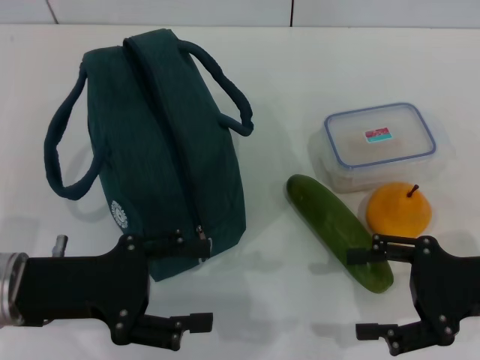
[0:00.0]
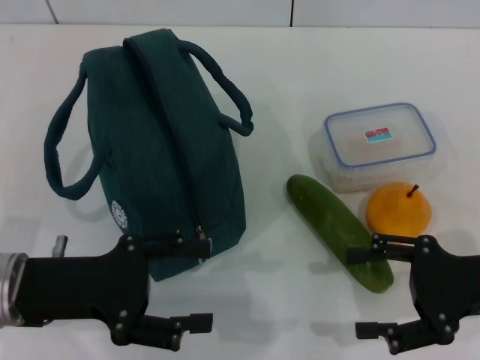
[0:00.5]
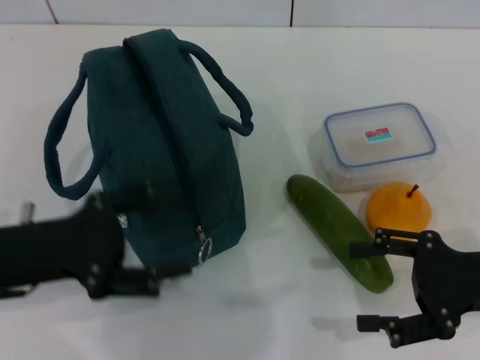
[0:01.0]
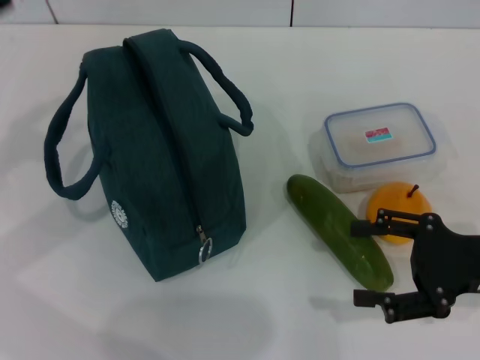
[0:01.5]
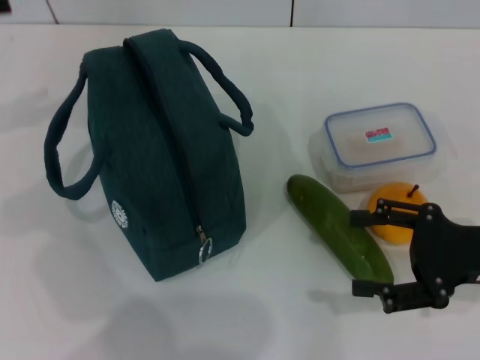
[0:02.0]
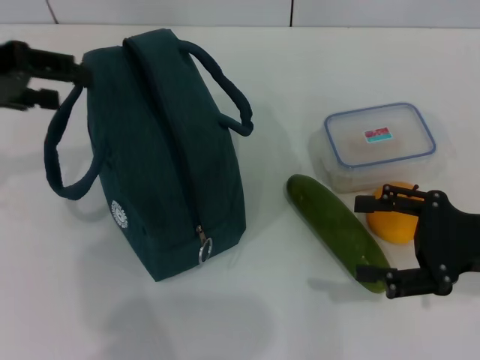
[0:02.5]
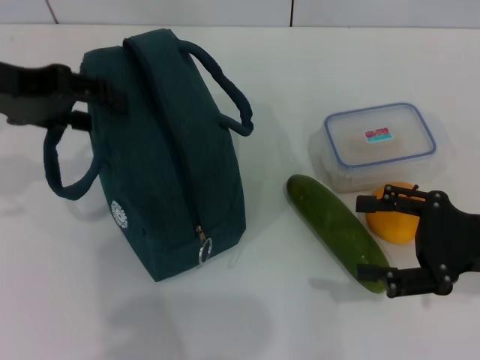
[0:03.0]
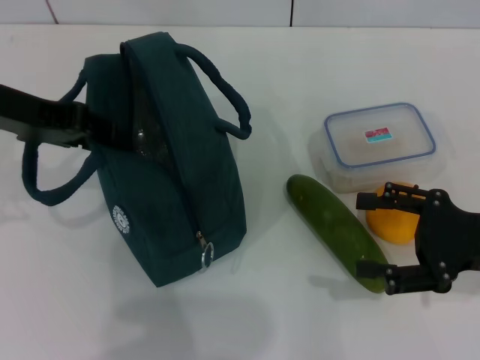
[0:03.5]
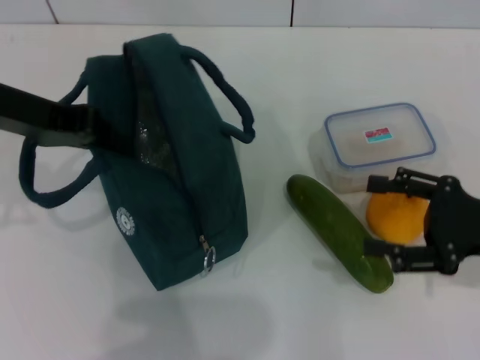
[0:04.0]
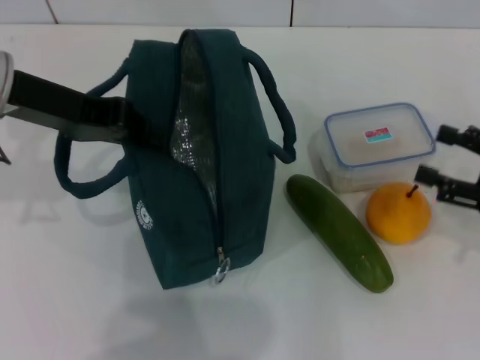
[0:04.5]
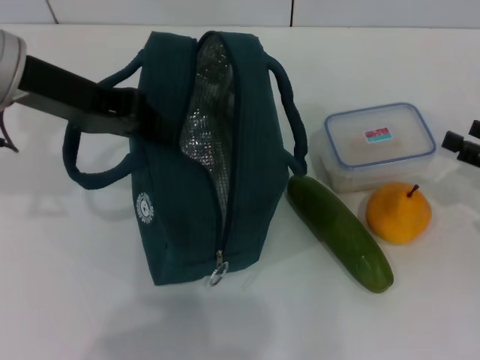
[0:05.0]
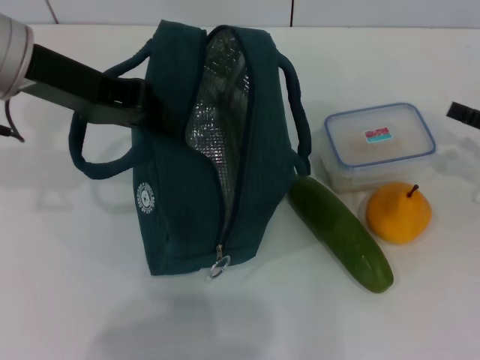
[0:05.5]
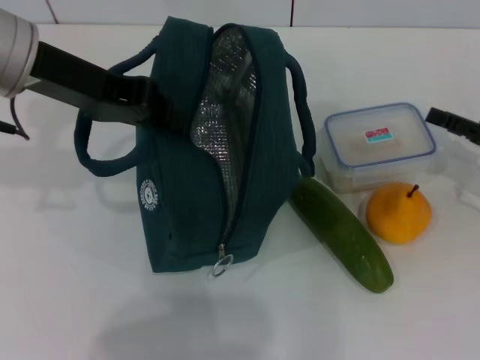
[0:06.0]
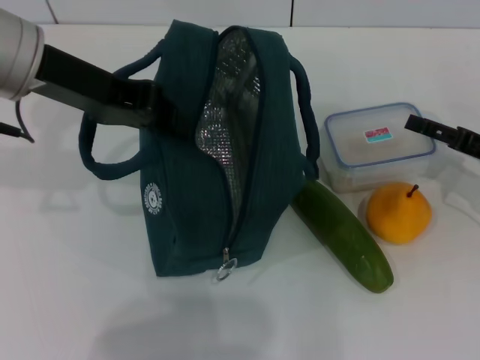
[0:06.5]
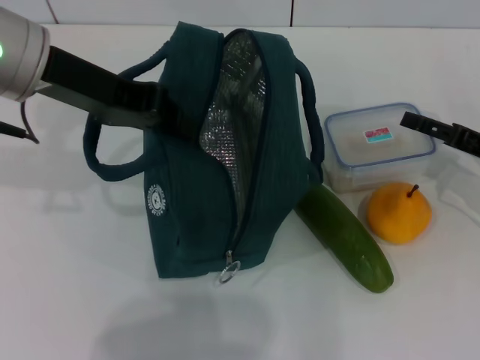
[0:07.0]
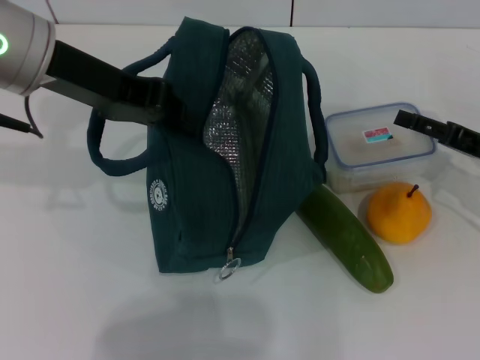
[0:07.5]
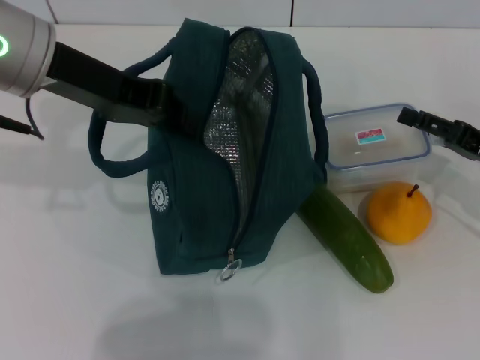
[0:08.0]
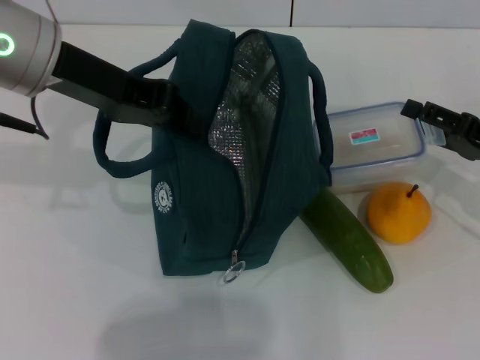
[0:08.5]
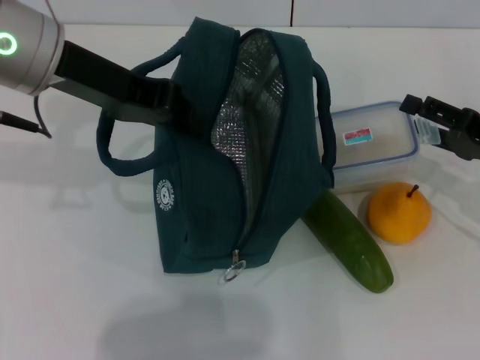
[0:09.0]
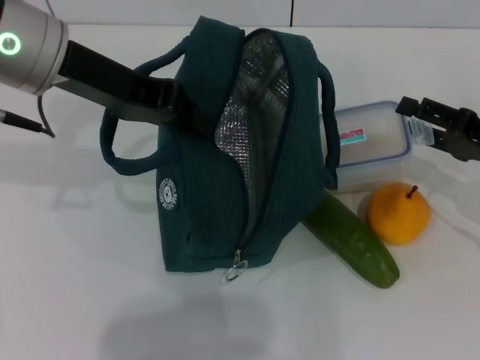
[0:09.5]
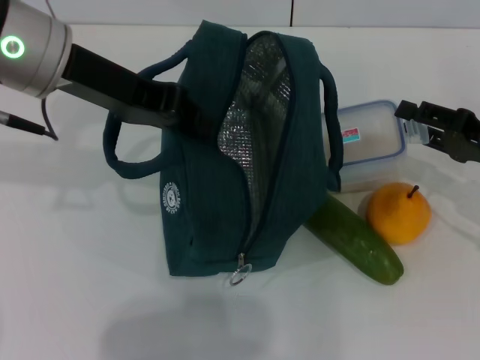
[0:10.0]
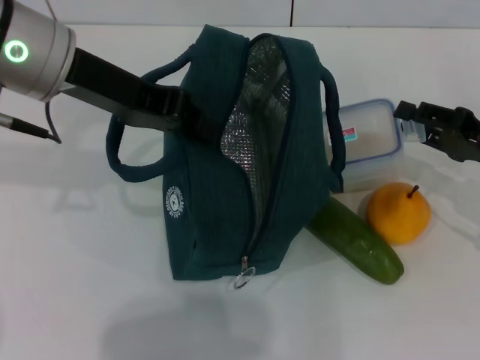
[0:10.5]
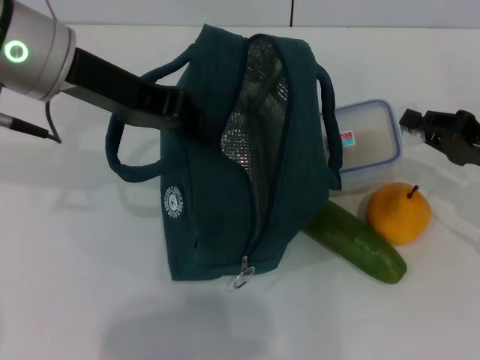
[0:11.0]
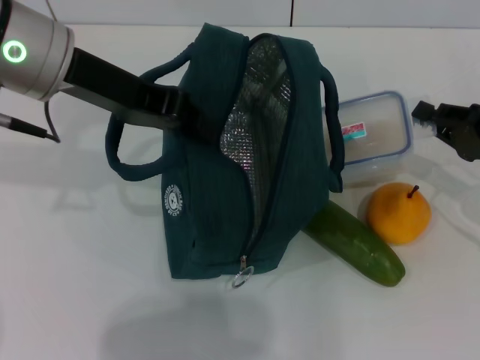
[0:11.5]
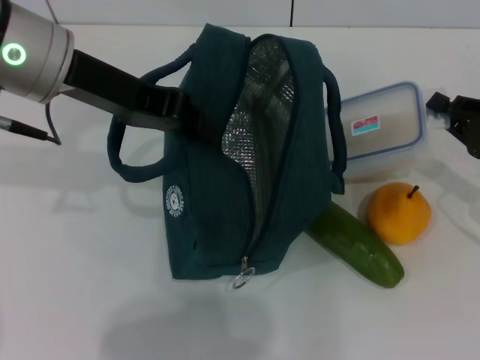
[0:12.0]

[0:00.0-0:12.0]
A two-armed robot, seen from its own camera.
Step, 0:00.0 to 0:03.5: Hold the lunch bag with your left hand.
Step, 0:04.5 to 0:11.0: Pick up the lunch box with your right hand.
0:00.0 to 0:02.0: The left gripper travels upward, forward and to the left by approximately 25 cm.
0:02.0 to 0:04.0: The left gripper goes approximately 10 cm to the right, and closes.
0:04.0 to 0:06.0: The left gripper shifts by roughly 5 cm. The right gripper shifts some 5 cm forward.
0:06.0 to 0:08.0: There are only small adjustments of the grippers.
0:08.0 to 0:10.0: The grippers make only small movements.
0:10.0 to 0:12.0: The right gripper closes its fingers.

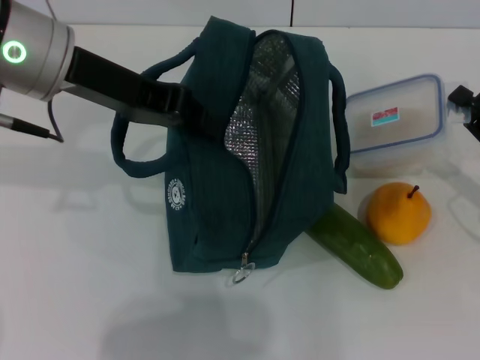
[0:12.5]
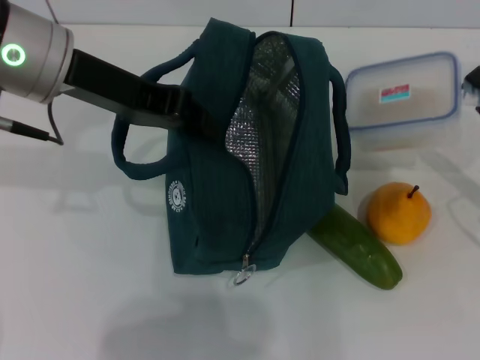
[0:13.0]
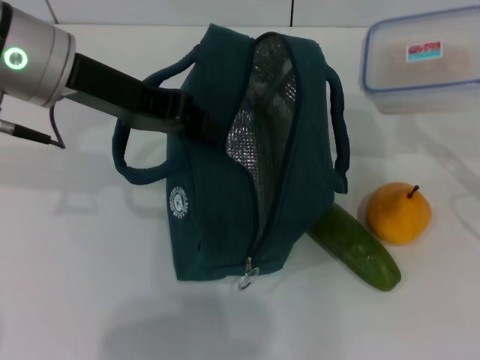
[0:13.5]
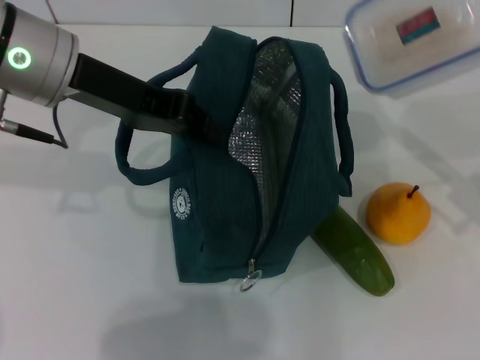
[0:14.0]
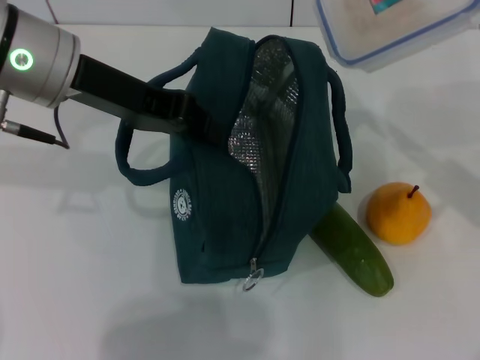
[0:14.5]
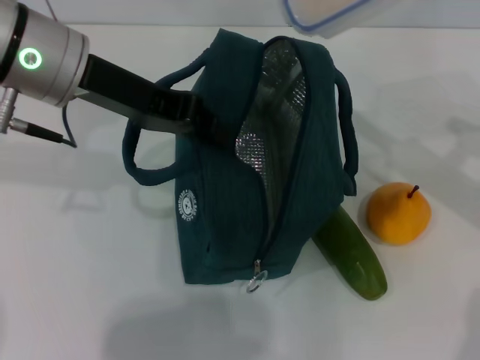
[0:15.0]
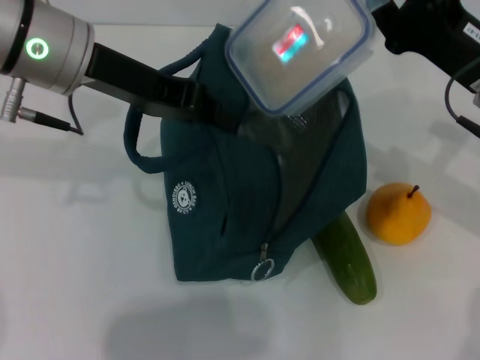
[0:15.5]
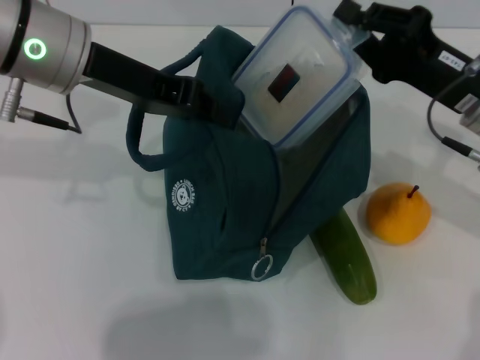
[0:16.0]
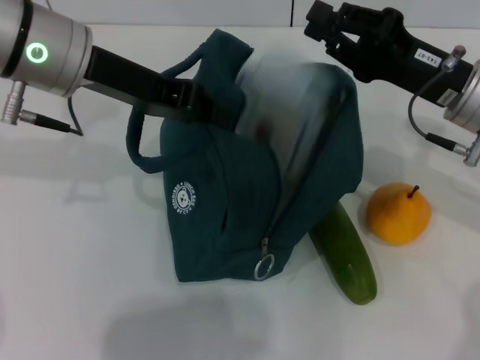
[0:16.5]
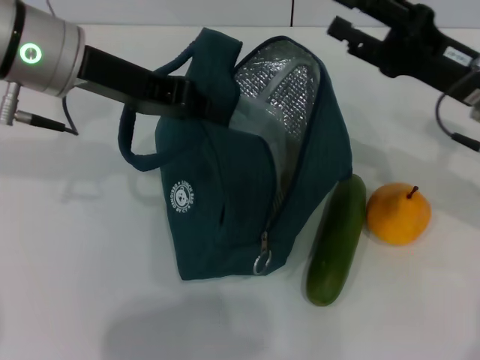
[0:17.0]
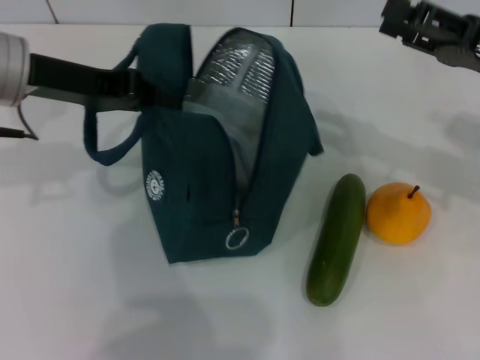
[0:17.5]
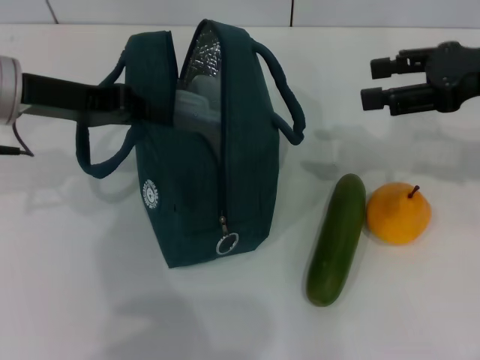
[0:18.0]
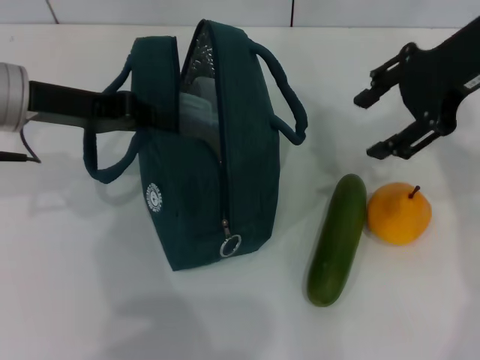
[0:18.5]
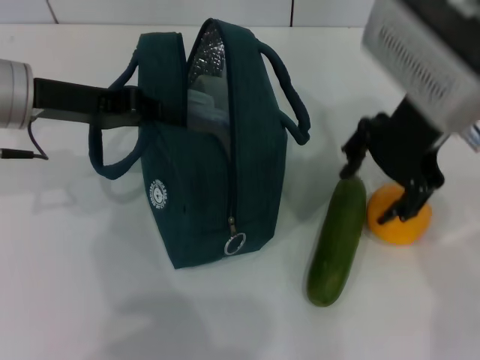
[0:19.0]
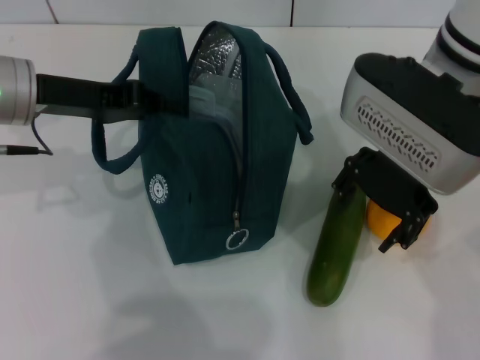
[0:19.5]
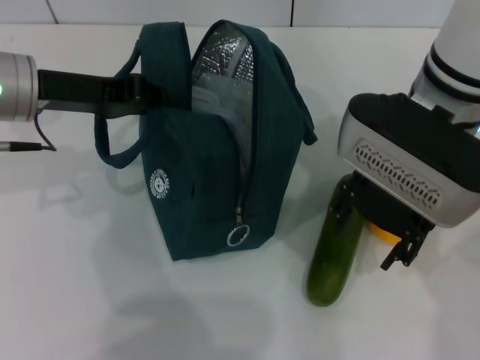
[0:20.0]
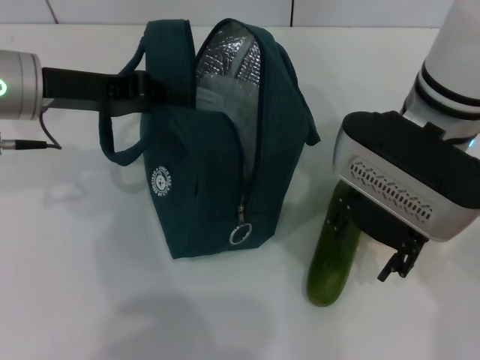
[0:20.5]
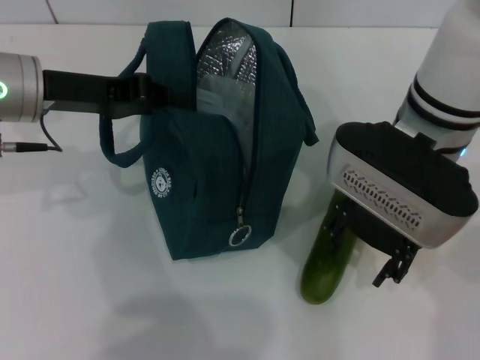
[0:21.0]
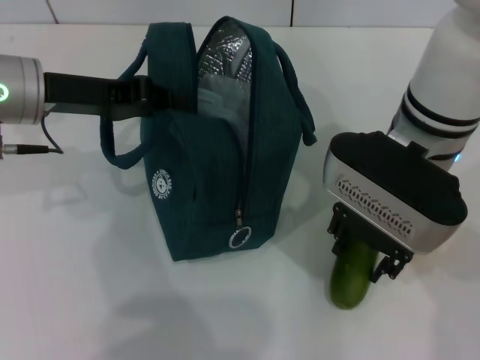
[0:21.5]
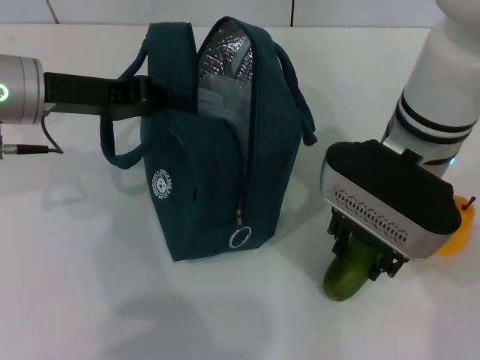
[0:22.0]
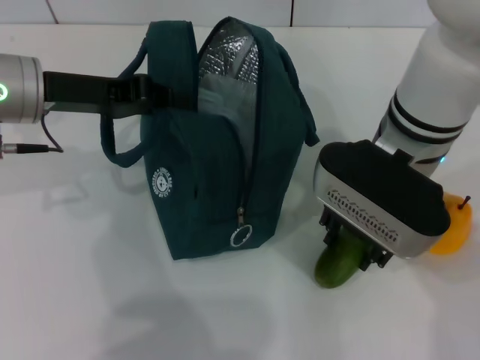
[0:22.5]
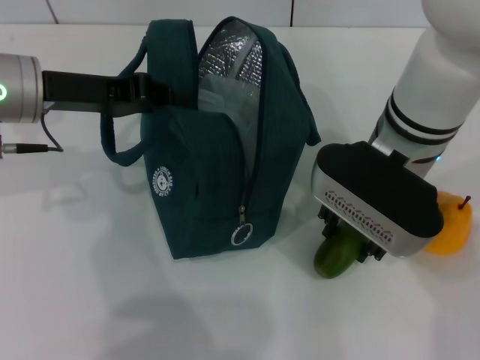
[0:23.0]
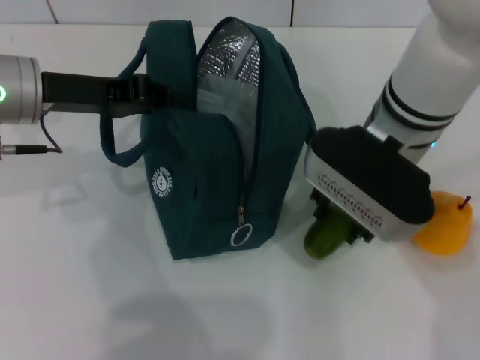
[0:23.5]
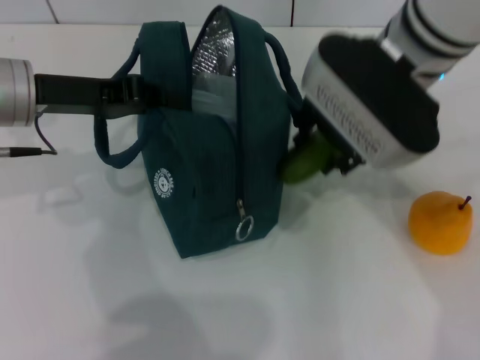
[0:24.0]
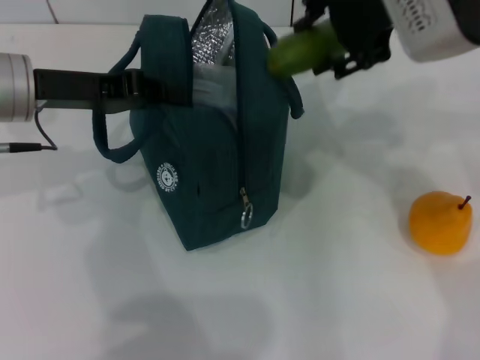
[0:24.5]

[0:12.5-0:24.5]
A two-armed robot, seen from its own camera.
Step, 0:12.5 to 0:16.5: Place the lunch box into the lunch bag with your right hand.
Step, 0:17.0 to 0:22.0: Pick up the cucumber with your right hand.
0:12.5 to 0:14.5: The right gripper travels upward by some 5 cm.
0:14.5 to 0:16.5: The right gripper moves to the left, about 5 cm.
0:16.5 to 0:18.5: The right gripper travels upward by some 15 cm, and opens; the left gripper shifts approximately 10 cm to the left and downward.
0:18.5 to 0:20.5: The right gripper goes some 15 cm to the left, downward and backward.
0:20.5 to 0:22.5: The grippers move only a little.
0:22.5 to 0:24.5: The right gripper travels upward by approximately 15 cm.

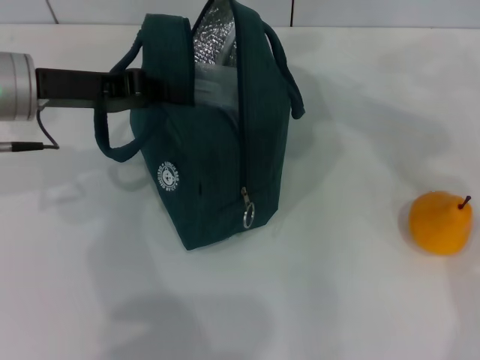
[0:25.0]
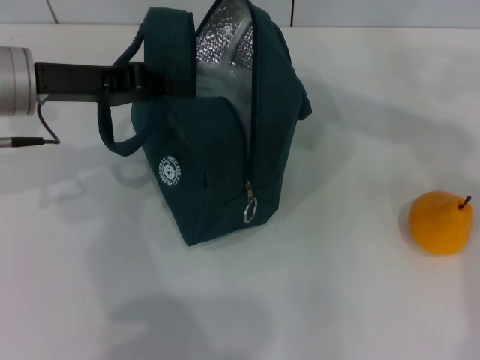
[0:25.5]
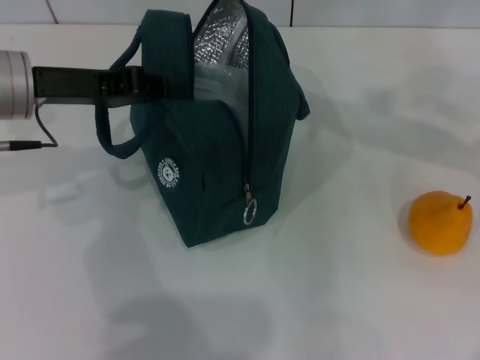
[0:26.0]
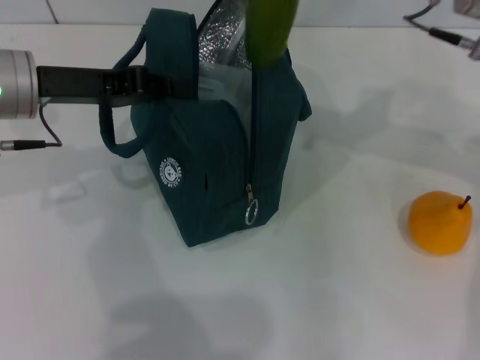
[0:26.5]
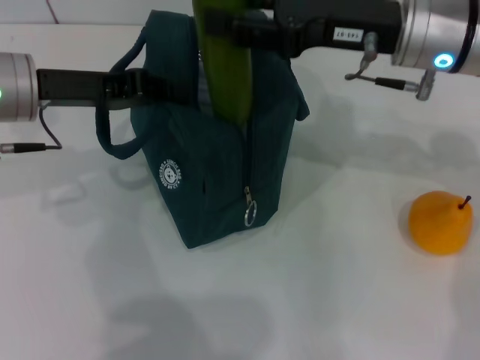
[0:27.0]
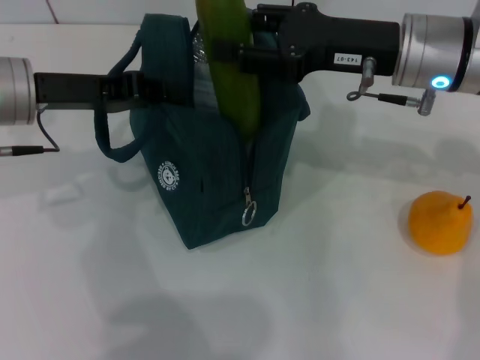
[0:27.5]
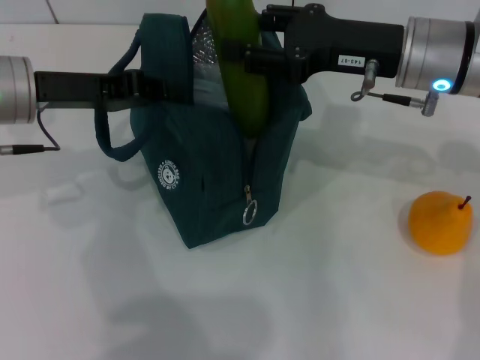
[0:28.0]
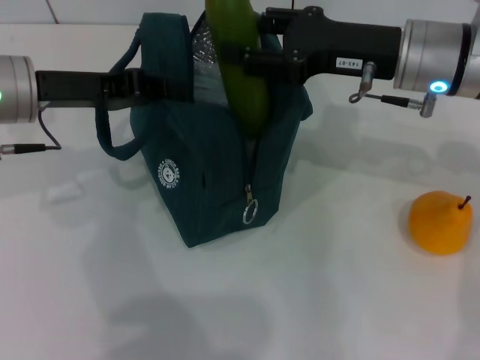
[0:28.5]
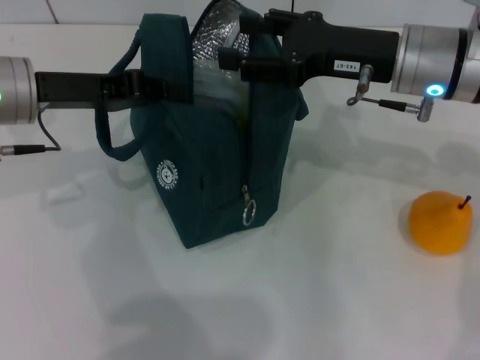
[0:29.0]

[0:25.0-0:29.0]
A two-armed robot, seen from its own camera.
Step, 0:25.0 to 0:28.5: Put the cucumber into the lunch bag with your right hand.
0:25.0 to 0:27.0: The right gripper heads downward, covering some 15 cm.
0:27.0 to 0:29.0: The grippers make only small movements.
